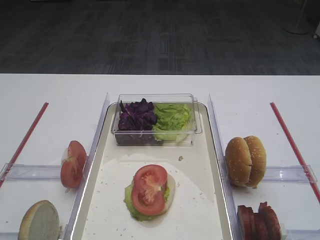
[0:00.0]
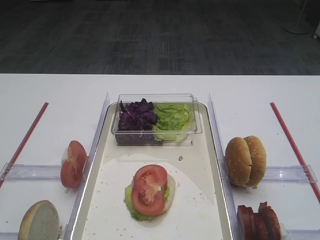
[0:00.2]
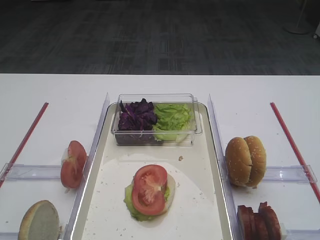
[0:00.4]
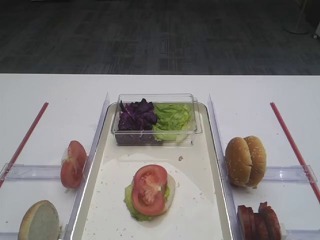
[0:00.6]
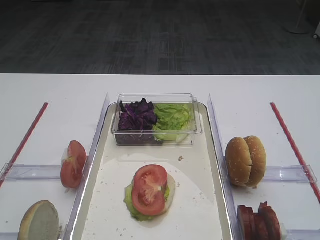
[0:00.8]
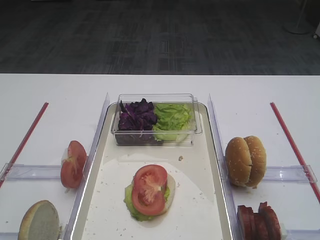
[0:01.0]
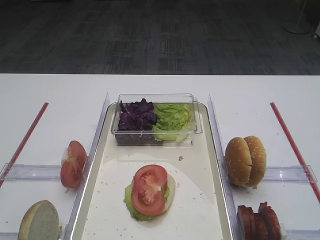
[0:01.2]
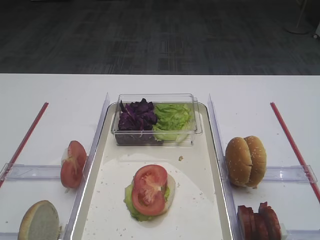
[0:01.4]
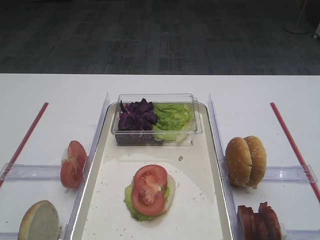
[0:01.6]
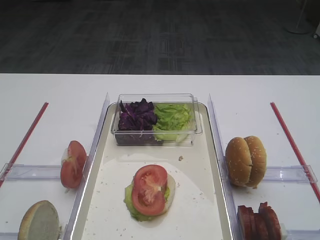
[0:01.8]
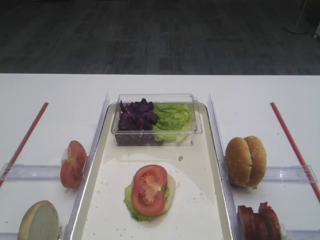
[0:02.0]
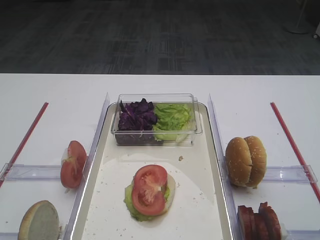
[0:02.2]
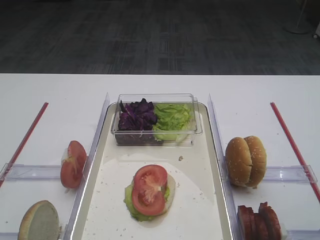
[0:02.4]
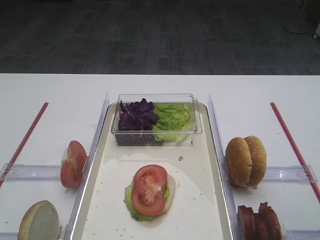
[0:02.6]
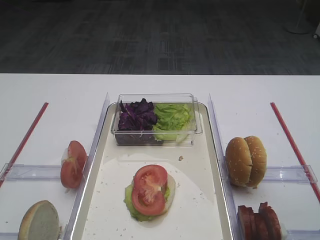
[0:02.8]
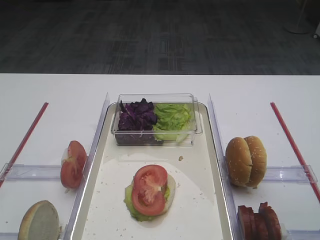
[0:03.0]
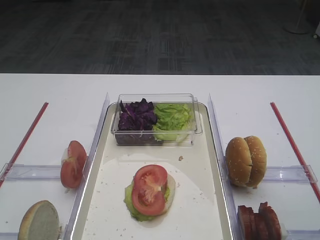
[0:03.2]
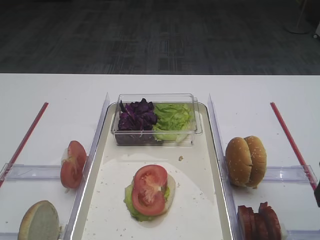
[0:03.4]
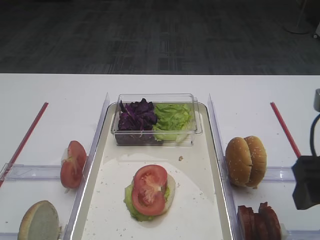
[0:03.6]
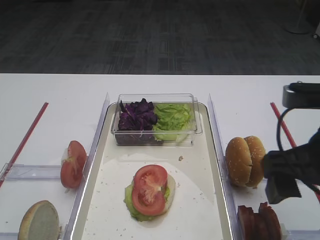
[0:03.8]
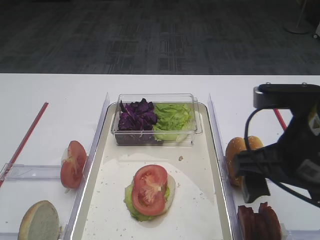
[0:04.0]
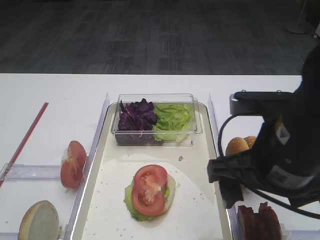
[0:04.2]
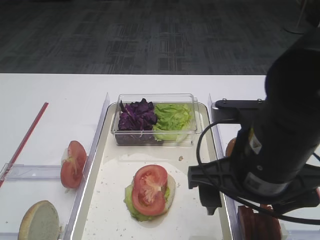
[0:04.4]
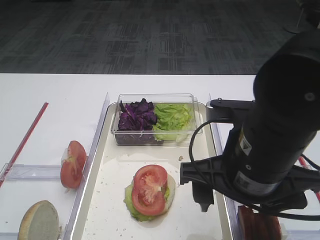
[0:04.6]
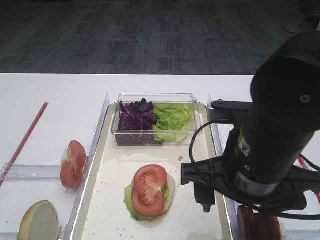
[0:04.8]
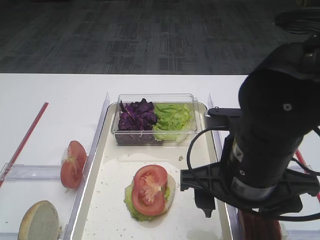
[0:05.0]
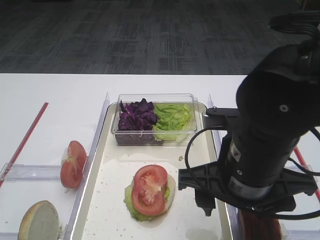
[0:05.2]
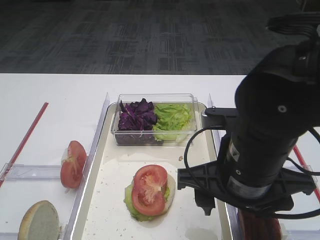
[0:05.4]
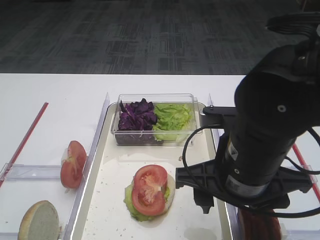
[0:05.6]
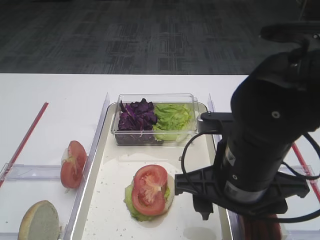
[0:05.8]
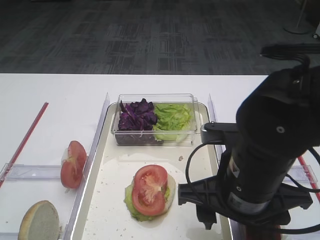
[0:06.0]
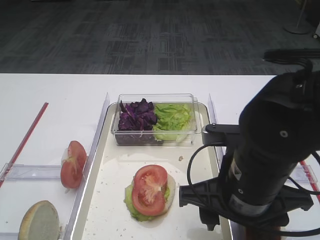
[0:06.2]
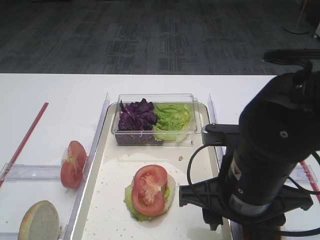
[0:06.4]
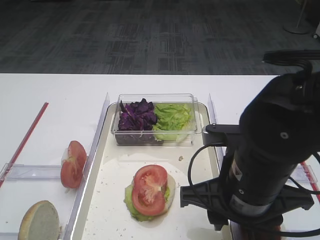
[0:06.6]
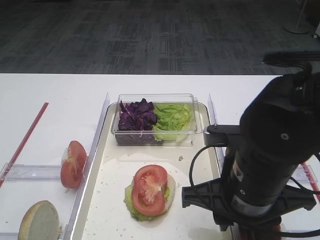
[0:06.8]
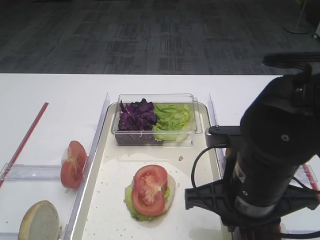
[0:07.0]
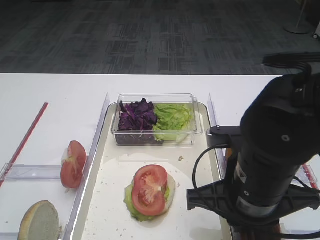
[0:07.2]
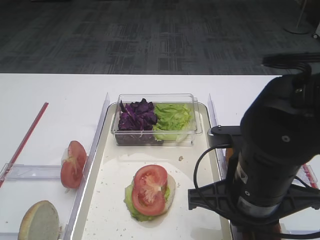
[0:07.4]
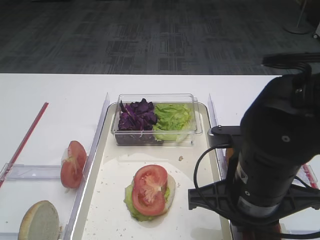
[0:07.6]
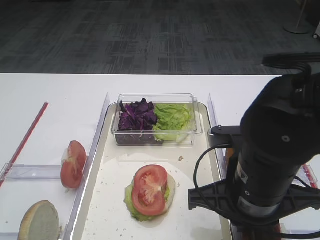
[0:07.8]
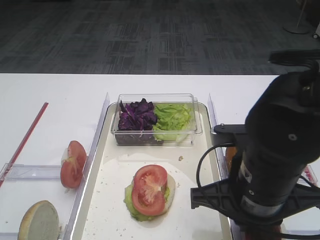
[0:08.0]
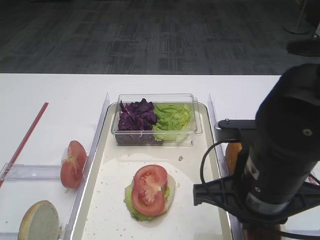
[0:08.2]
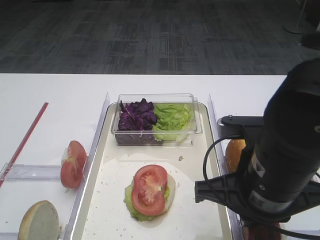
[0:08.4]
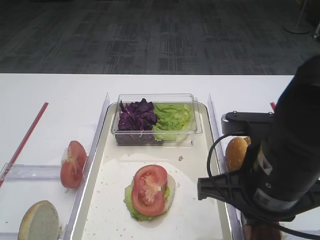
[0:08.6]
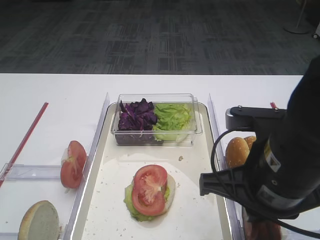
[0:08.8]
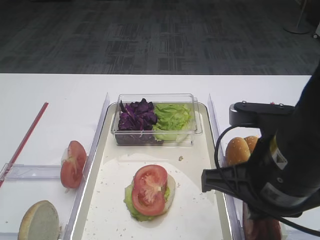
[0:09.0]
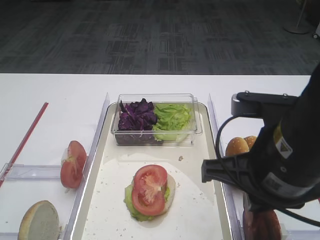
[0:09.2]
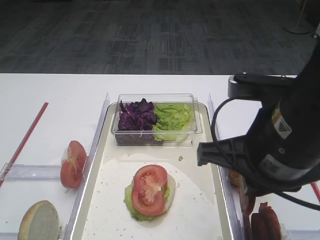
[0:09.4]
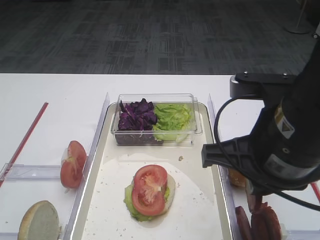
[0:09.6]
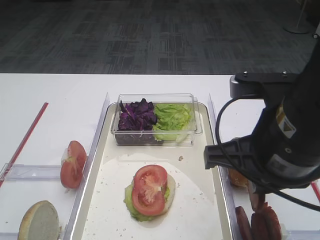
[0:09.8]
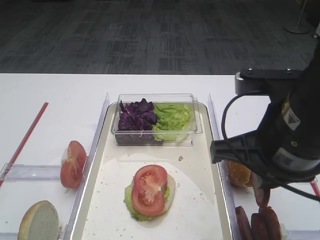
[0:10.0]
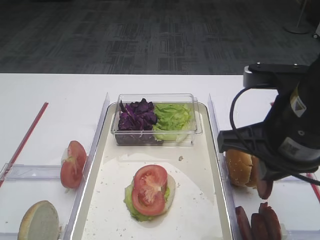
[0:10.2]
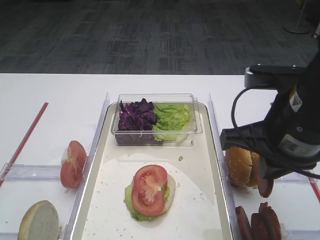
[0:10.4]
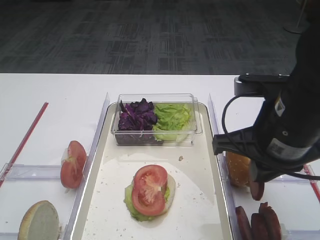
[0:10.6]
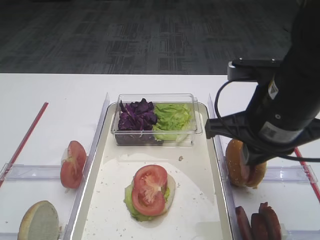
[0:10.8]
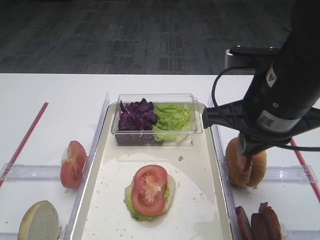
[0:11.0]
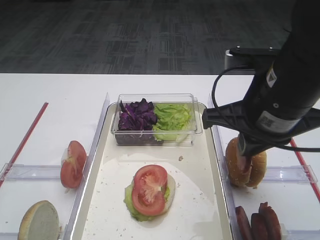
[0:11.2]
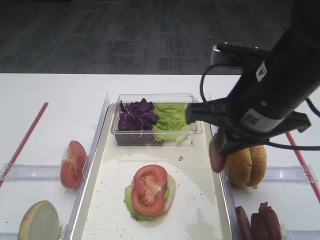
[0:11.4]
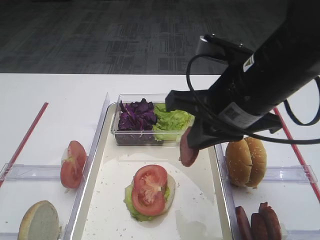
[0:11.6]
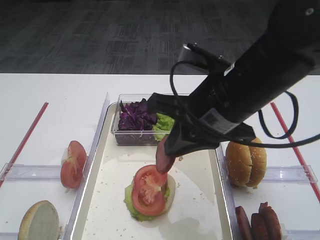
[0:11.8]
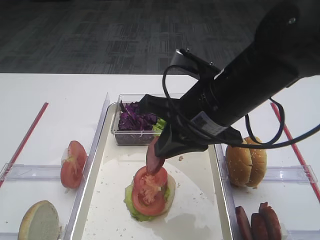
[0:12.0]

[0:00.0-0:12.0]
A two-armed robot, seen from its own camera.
Step, 0:00.0 to 0:09.0: Pick up the cutlet with the right gripper.
0:03.0 to 0:04.4: The right gripper heads to the left, covering approximately 15 cm.
0:04.4 to 0:06.0: The grippers make only small movements.
0:06.0 to 0:07.6: The right gripper closes up.
0:07.6 to 0:09.0: The right gripper ends up some 5 cm from where it was.
0:09.0 to 0:10.4: The right gripper moves approximately 5 cm.
0:10.4 to 0:12.0: The right gripper moves to the left, some 10 cm.

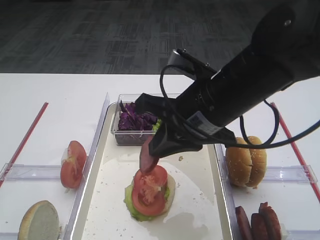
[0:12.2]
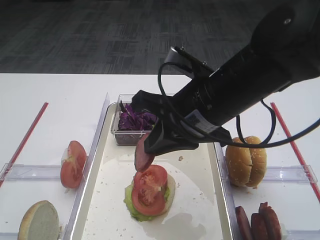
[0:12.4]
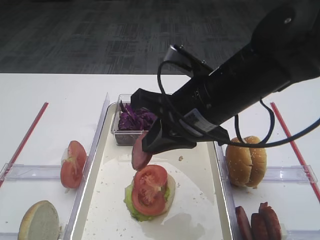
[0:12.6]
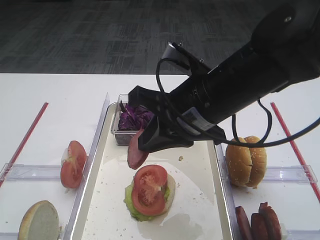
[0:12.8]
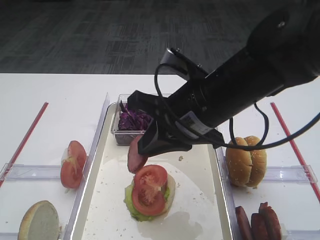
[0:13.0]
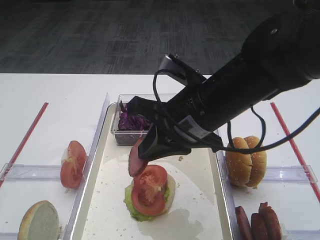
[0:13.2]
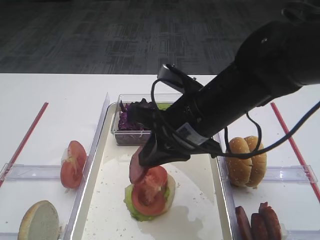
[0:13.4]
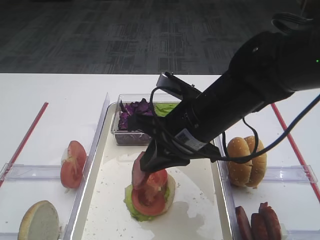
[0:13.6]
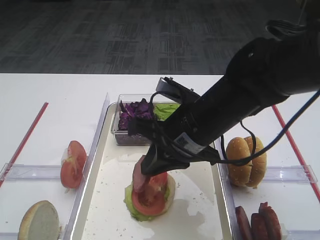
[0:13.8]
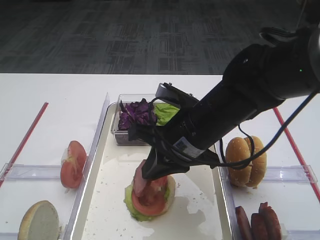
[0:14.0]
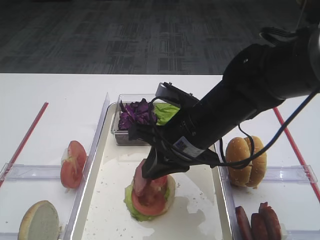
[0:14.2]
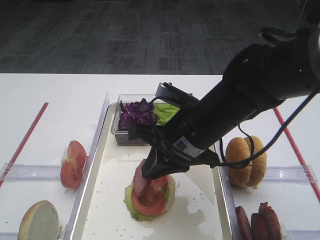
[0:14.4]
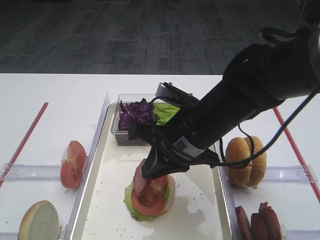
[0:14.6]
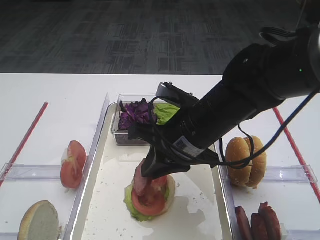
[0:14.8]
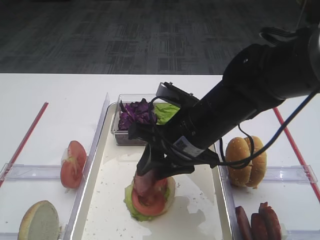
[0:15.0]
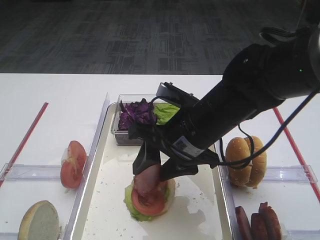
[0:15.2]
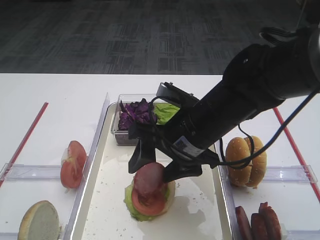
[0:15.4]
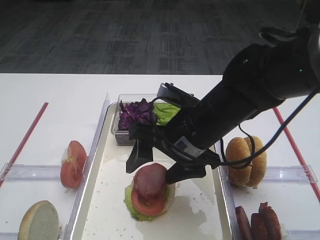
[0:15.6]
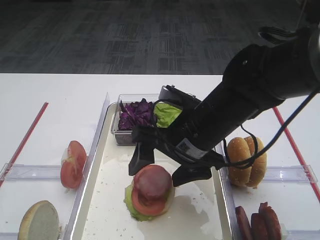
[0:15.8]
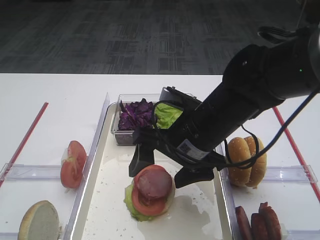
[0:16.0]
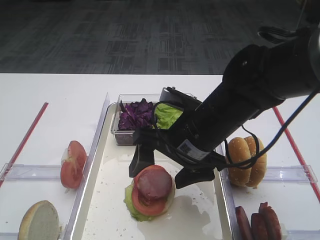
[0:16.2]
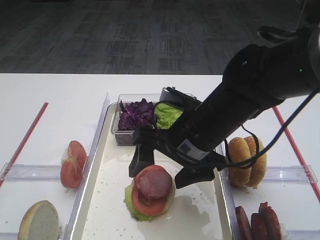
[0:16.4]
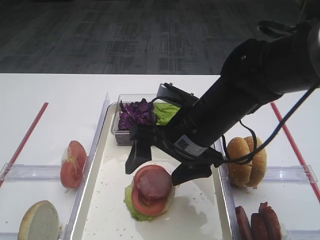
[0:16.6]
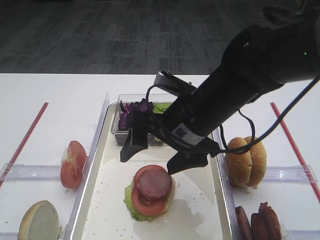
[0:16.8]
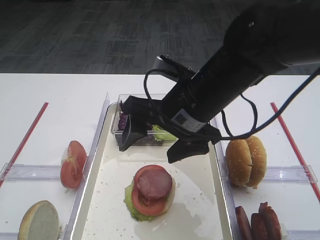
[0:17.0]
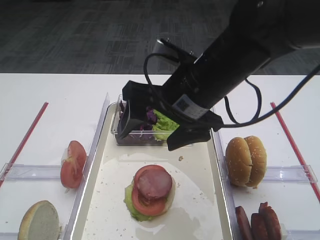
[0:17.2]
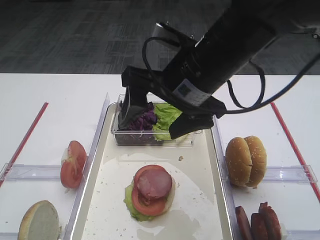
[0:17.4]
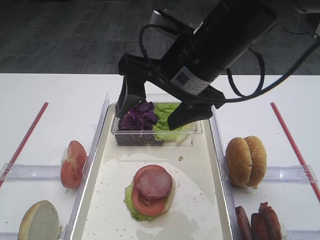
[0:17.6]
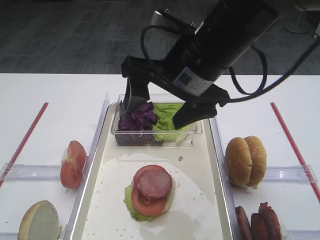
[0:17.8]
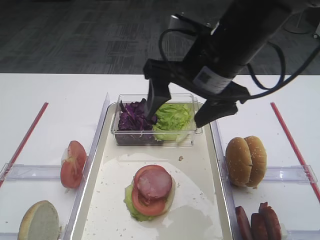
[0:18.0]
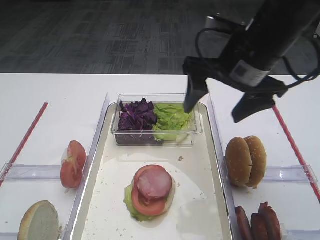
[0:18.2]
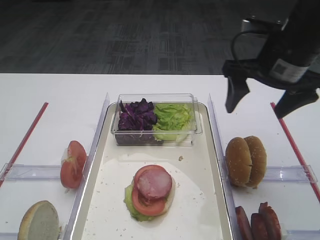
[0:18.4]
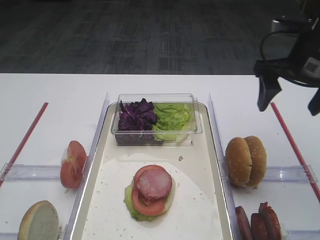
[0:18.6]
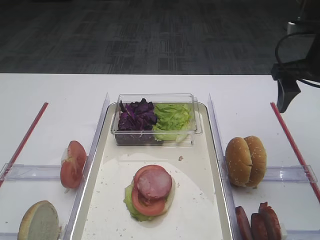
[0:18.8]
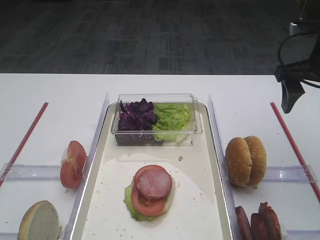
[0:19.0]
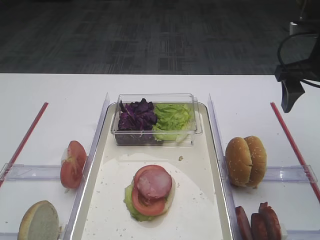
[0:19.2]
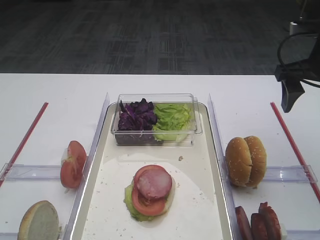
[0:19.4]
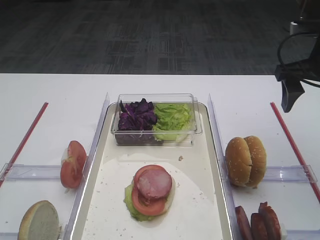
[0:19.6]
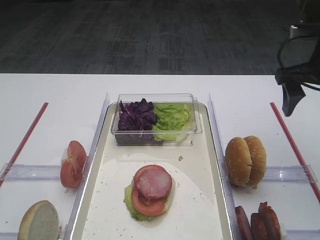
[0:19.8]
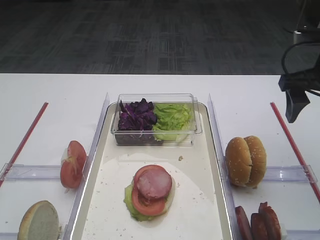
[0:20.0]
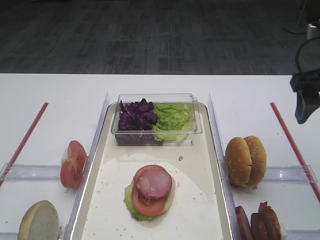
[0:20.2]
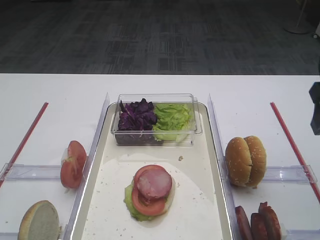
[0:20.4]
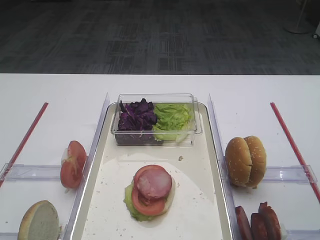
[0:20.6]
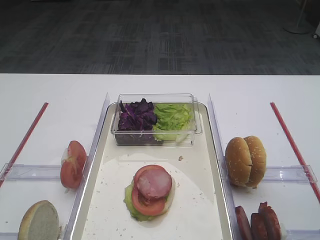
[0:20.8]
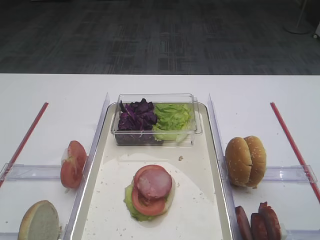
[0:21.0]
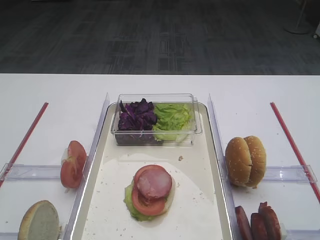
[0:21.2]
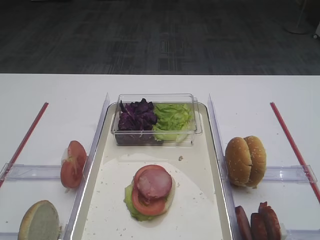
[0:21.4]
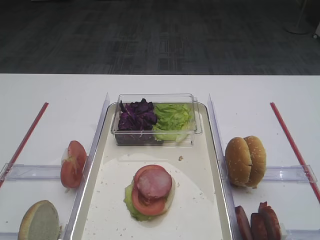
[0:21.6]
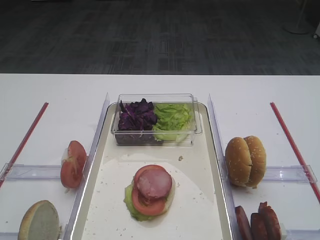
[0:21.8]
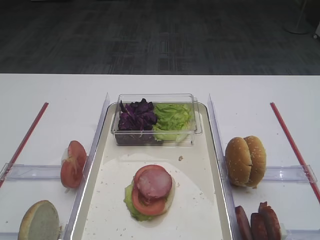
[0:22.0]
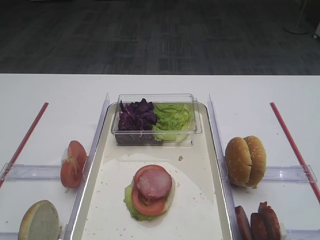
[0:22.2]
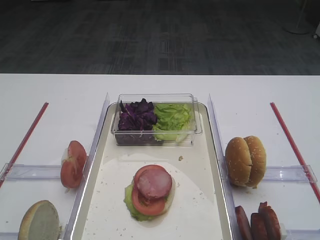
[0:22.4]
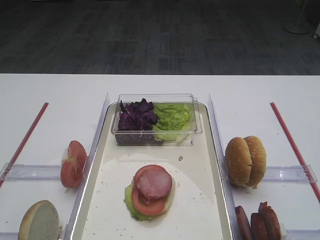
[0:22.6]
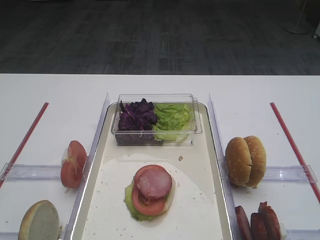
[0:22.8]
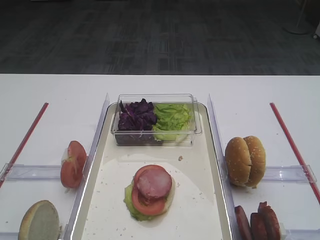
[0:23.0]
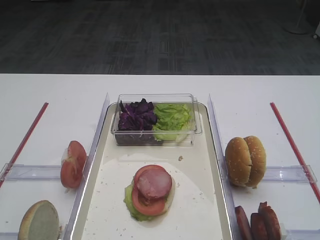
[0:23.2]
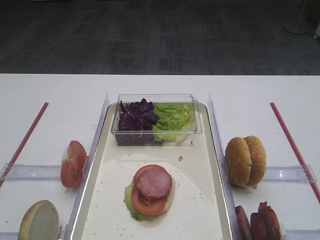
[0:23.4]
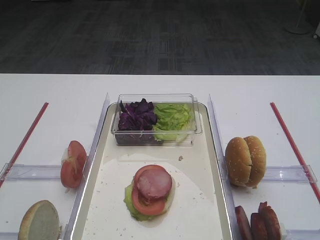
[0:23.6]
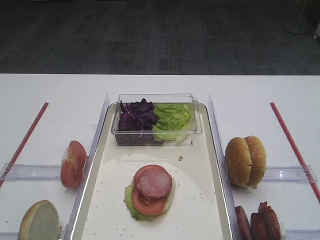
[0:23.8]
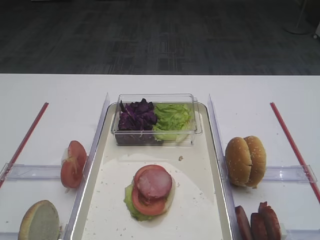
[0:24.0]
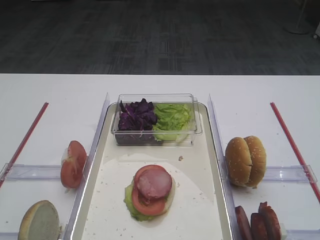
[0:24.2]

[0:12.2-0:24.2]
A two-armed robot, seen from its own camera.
Step, 0:12.2 to 0:16.6: Place the cutlet on the tomato slice with the right gripper.
0:12.2 to 0:13.8: The right gripper ends up approximately 5 cm from where it was.
0:13.8 to 0:15.2: The right gripper opens up.
0:15.2 to 0:16.6: The right gripper opens up.
0:16.6 to 0:18.2: The right gripper travels upward and to the right by about 10 cm.
0:18.2 to 0:19.8: The right gripper heads to the right, covering approximately 15 cm.
0:19.8 to 0:21.2: The right gripper moves backward, approximately 25 cm.
